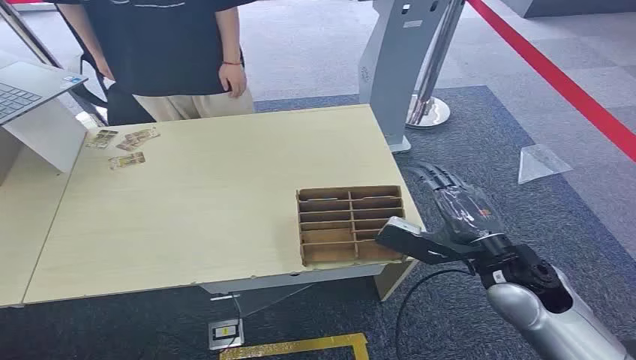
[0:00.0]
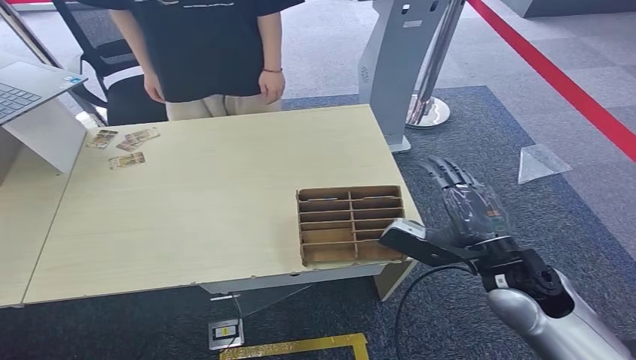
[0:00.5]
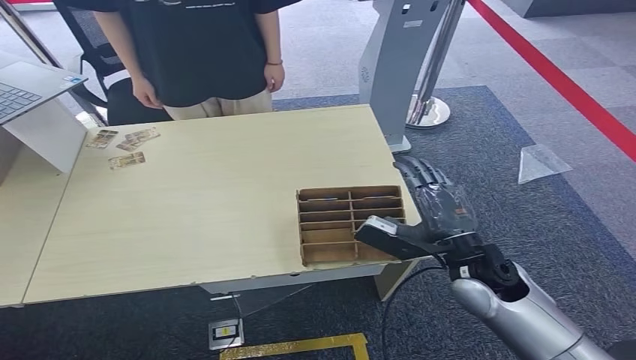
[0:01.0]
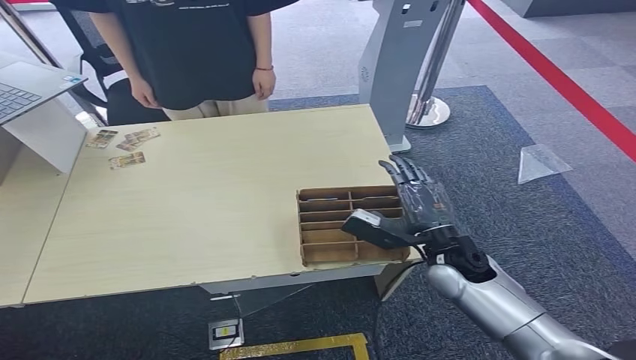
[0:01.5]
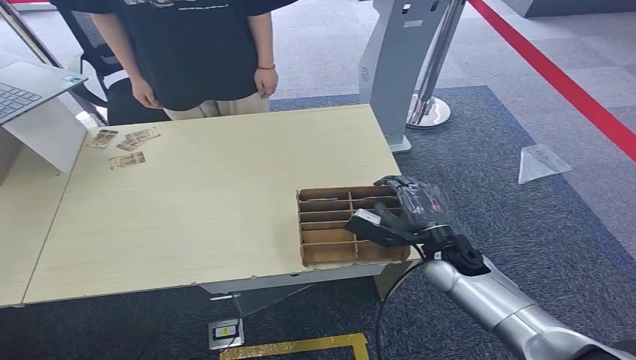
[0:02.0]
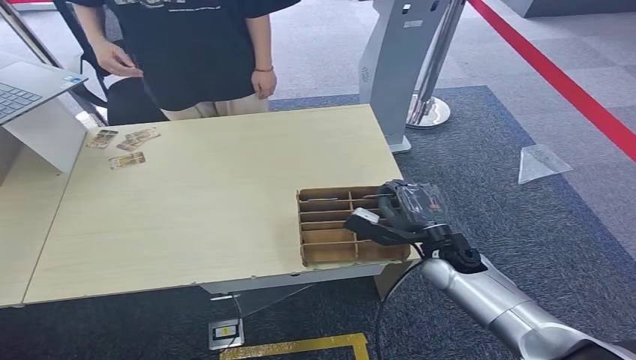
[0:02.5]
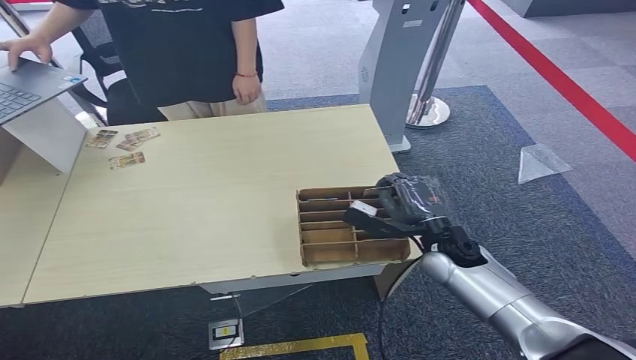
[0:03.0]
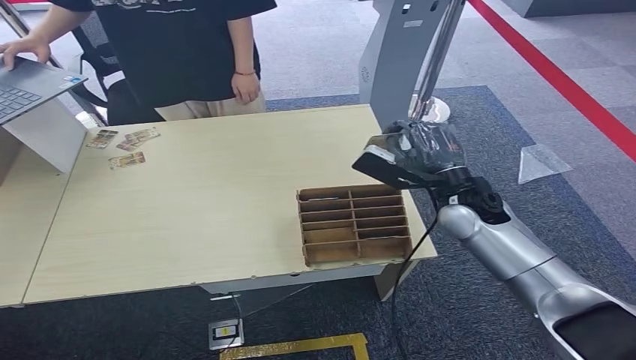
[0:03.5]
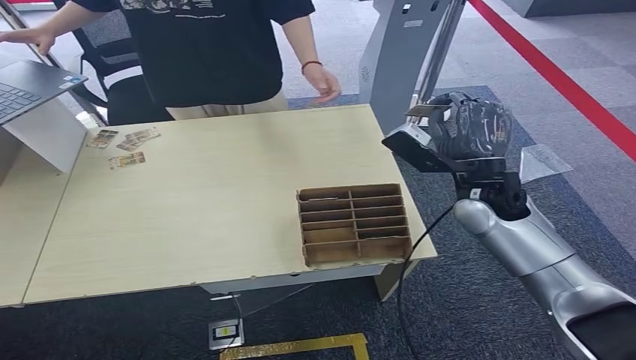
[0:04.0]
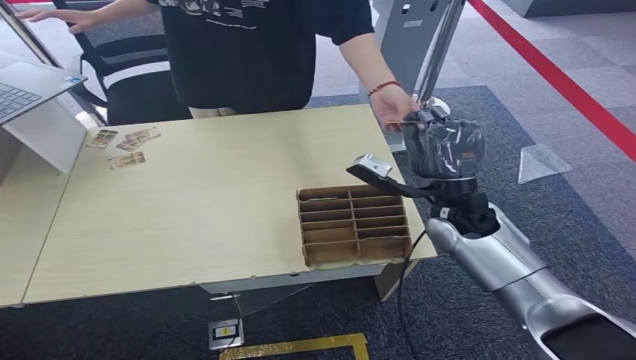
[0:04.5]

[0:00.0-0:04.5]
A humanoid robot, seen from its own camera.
Task of the whole recording: Pick up the card and hand it over to the target person.
Step, 0:00.0 to 0:03.0: Pick up the key card from the card box.
Step, 0:03.5 to 0:04.5: Hand the key card to the target.
0:02.0 to 0:04.5: The right hand heads upward, covering roughly 10 cm.
